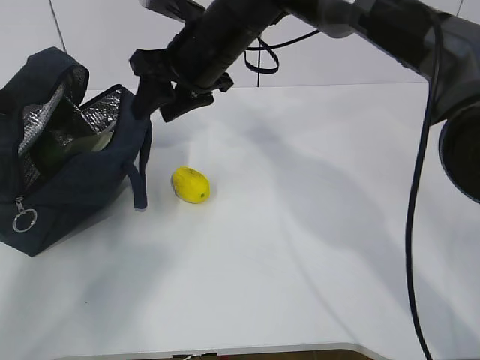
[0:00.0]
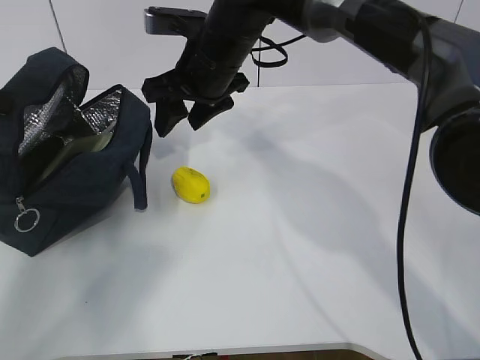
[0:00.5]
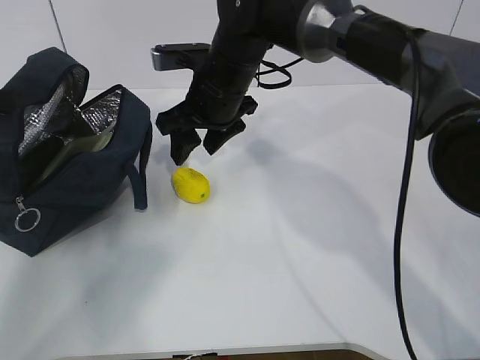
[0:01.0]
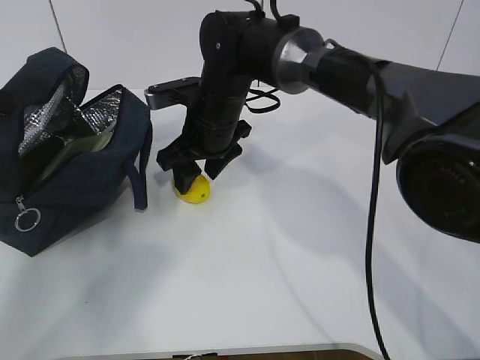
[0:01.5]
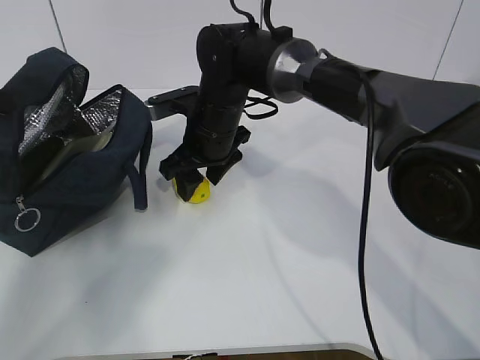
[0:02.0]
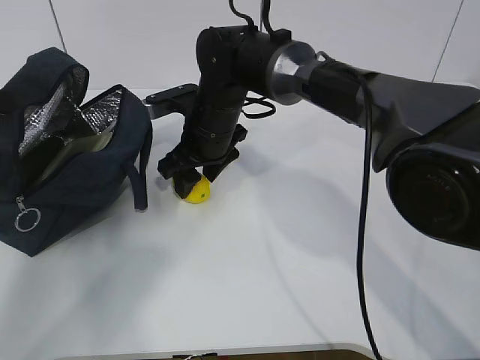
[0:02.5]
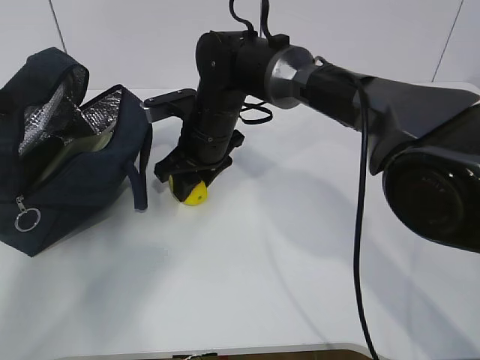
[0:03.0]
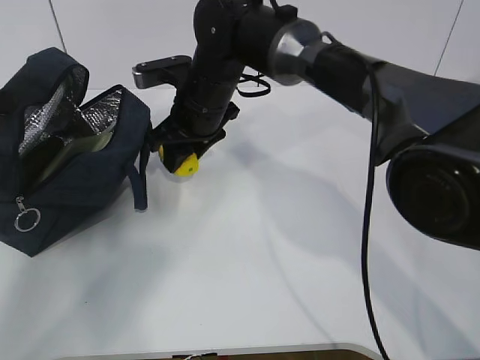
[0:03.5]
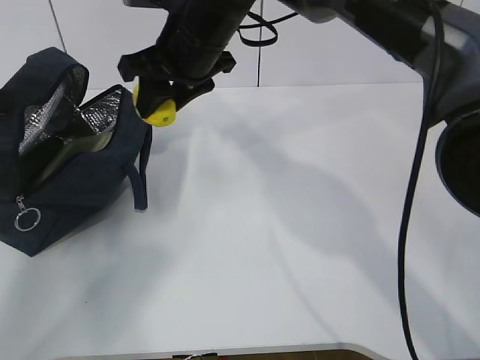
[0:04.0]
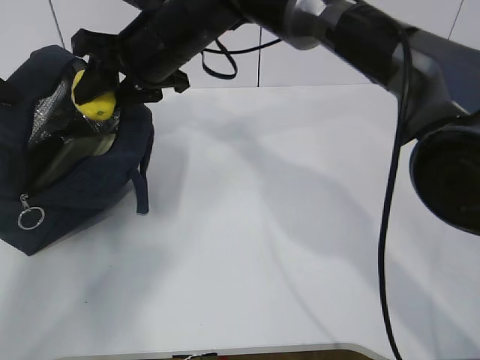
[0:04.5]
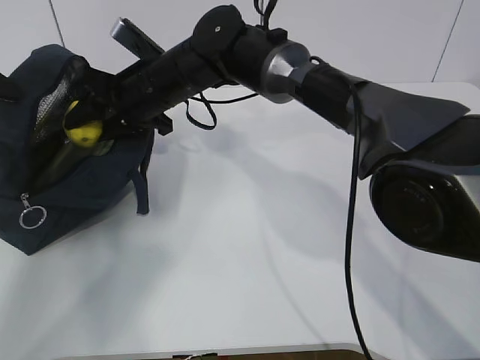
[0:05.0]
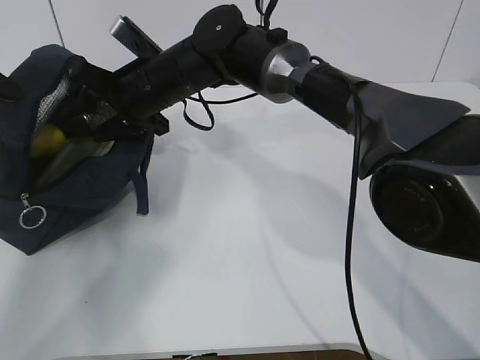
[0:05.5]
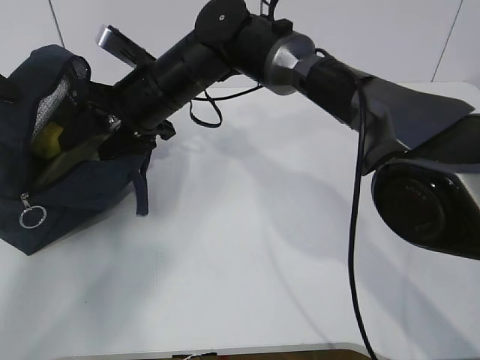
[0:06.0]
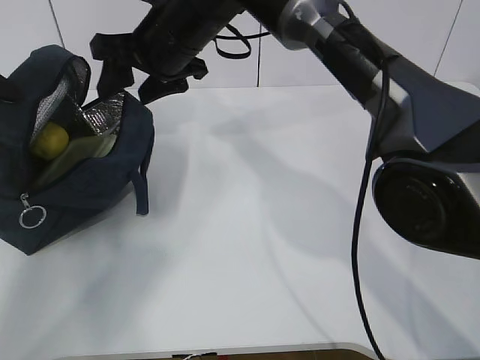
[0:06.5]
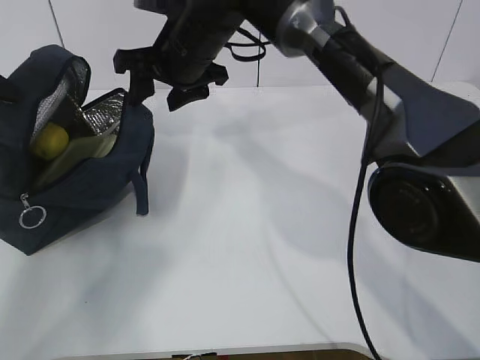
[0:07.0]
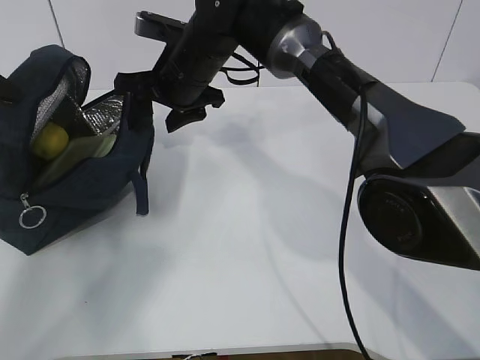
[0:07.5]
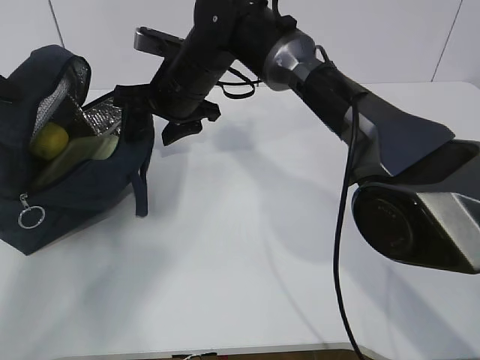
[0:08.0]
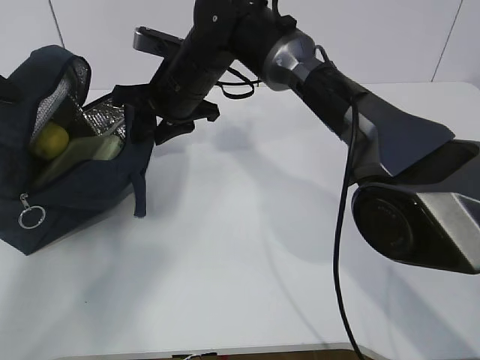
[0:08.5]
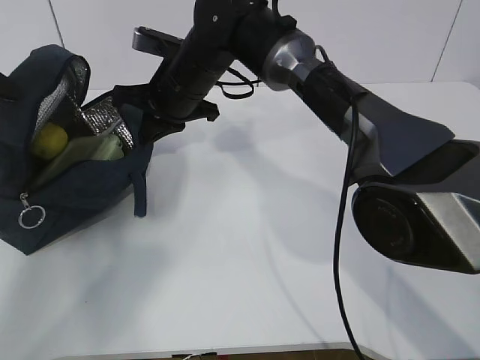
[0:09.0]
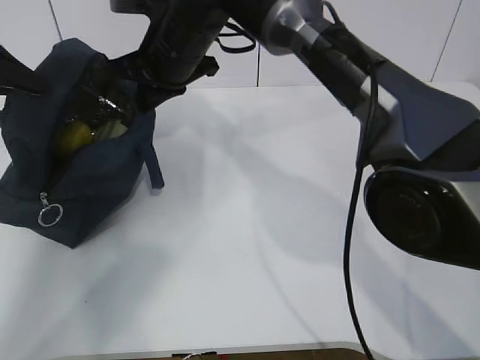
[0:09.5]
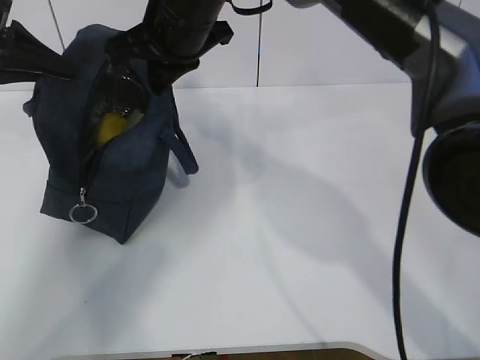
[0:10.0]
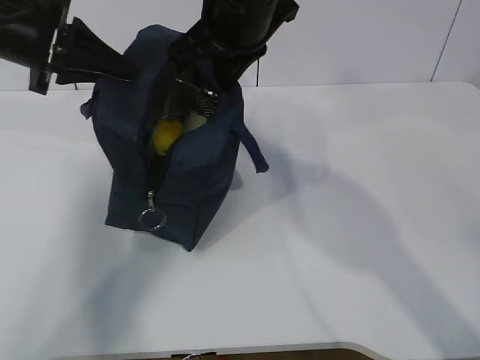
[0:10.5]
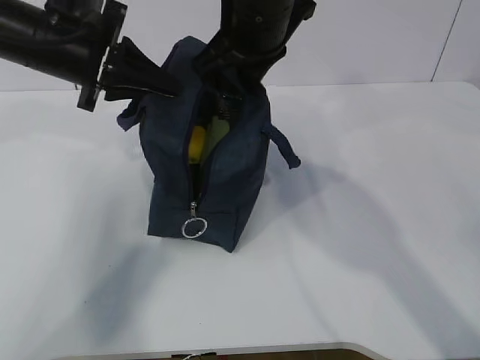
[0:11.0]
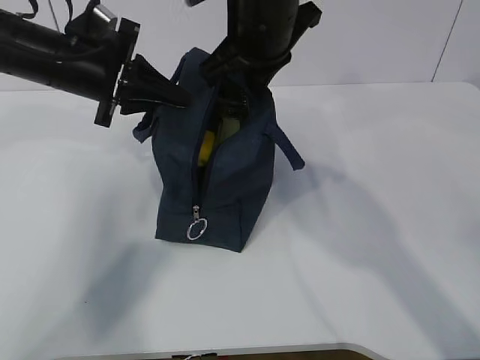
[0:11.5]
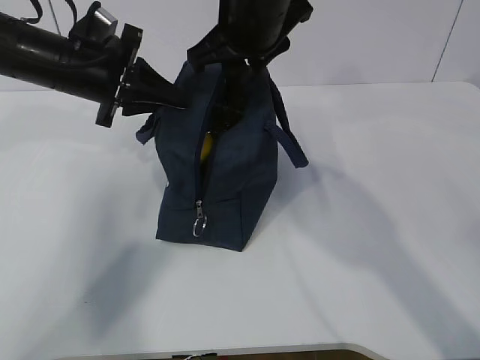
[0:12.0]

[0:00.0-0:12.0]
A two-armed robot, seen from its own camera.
Step, 0:00.0 to 0:02.5: Grab the lunch bag with your right hand.
Step, 0:03.0 to 0:05.5: Move the lunch bag to the right.
0:00.0 to 0:02.0: The right gripper moves downward, about 10 cm.
0:02.0 to 0:04.0: The right gripper is displaced upward by about 10 cm.
0:04.0 to 0:06.0: The right gripper moves downward, about 5 cm.
0:08.0 to 0:10.0: The right gripper goes roughly 10 cm upward, and closes up. Meanwhile the left gripper is displaced to the right by some 5 cm.
0:10.0 to 0:12.0: The right gripper is displaced to the right by about 5 cm, and opens its fingers, while the left gripper goes some 15 cm to the right and downward.

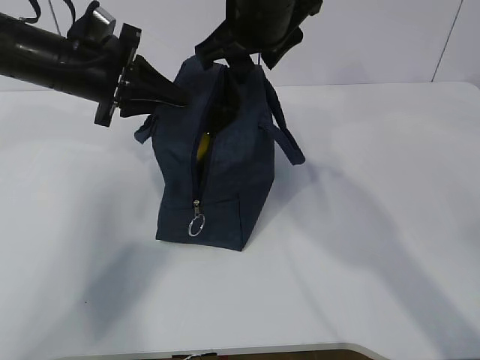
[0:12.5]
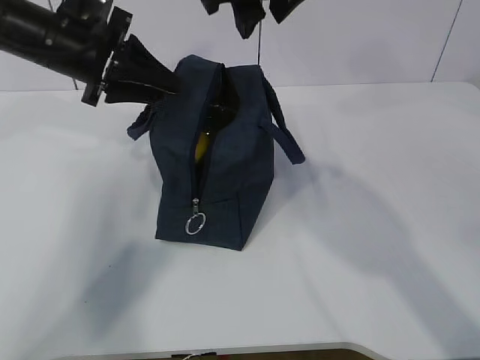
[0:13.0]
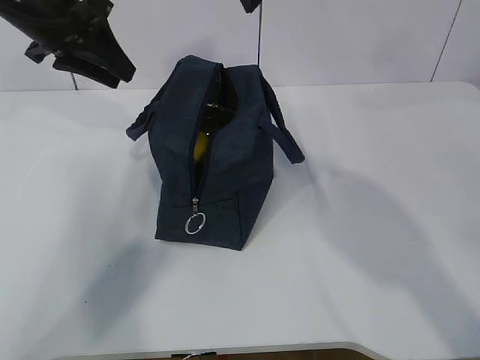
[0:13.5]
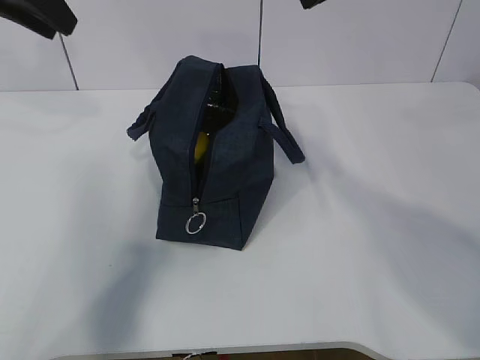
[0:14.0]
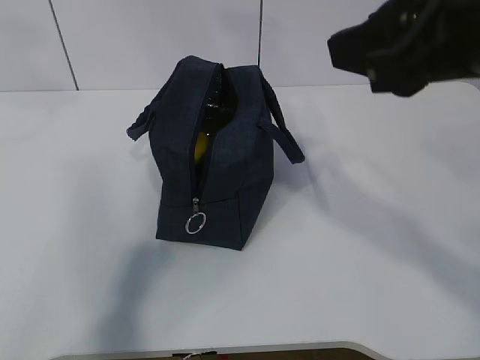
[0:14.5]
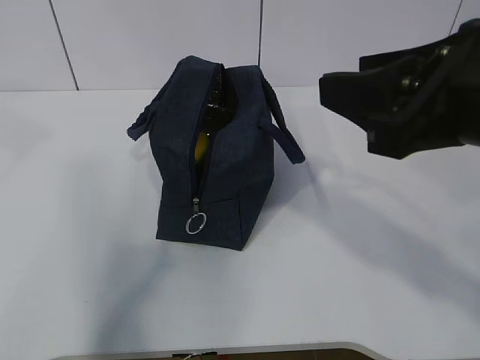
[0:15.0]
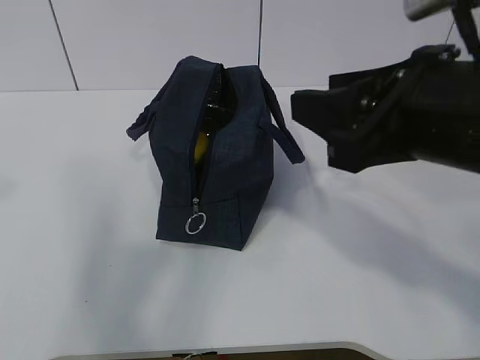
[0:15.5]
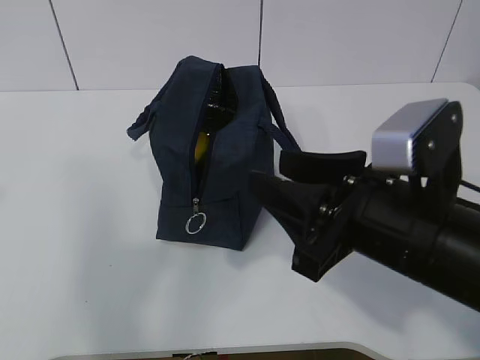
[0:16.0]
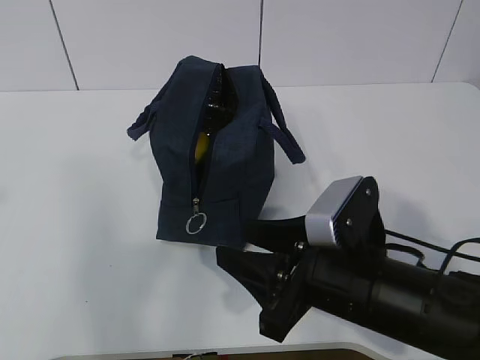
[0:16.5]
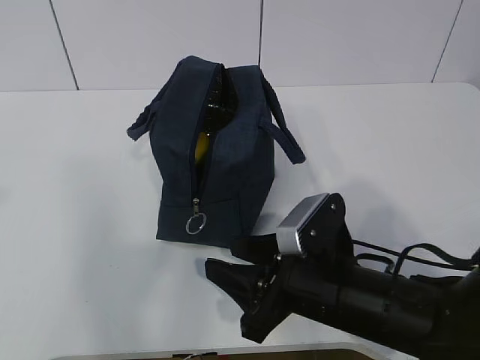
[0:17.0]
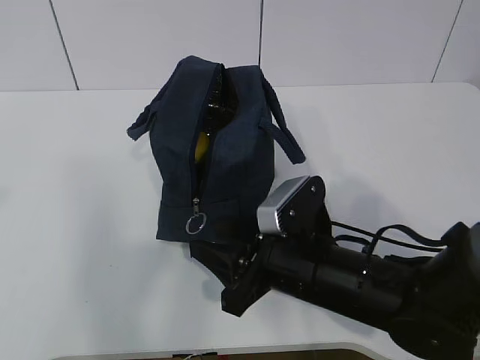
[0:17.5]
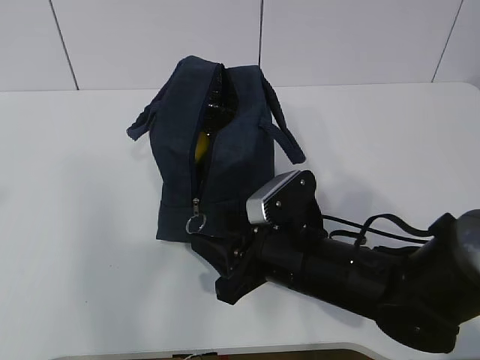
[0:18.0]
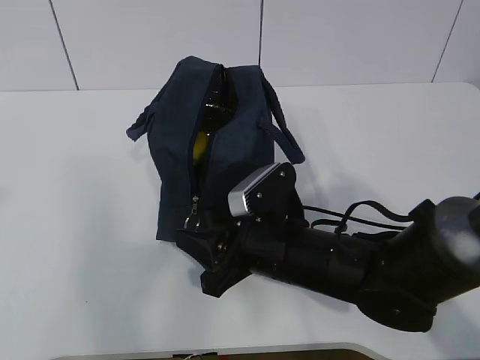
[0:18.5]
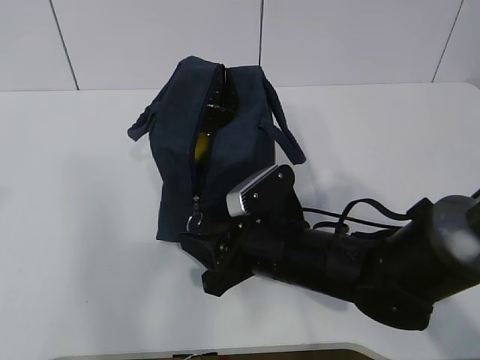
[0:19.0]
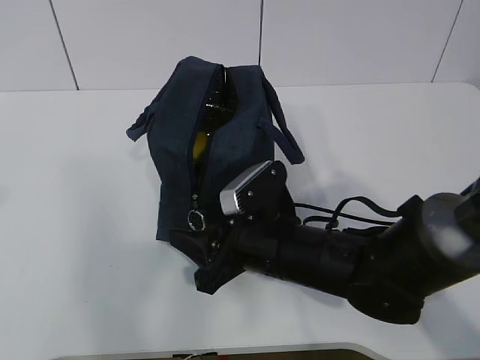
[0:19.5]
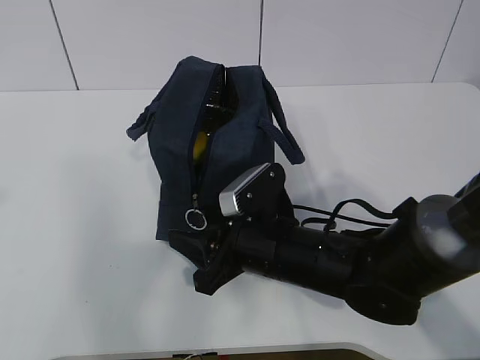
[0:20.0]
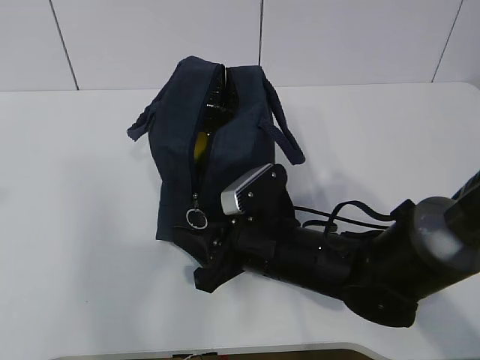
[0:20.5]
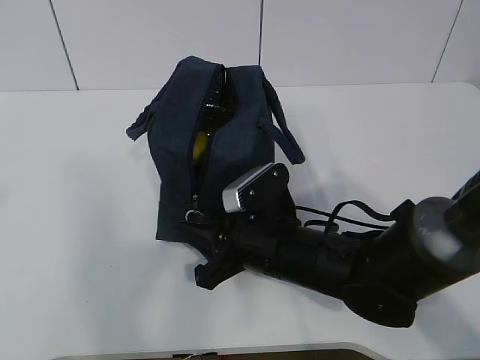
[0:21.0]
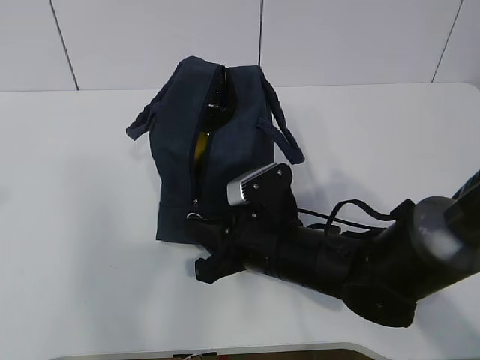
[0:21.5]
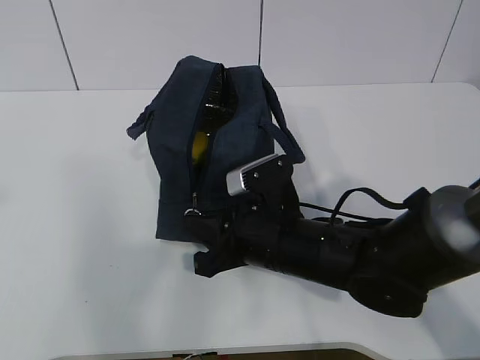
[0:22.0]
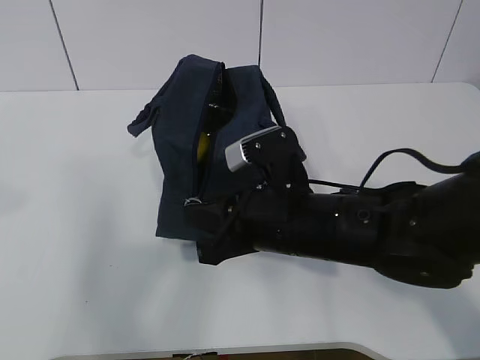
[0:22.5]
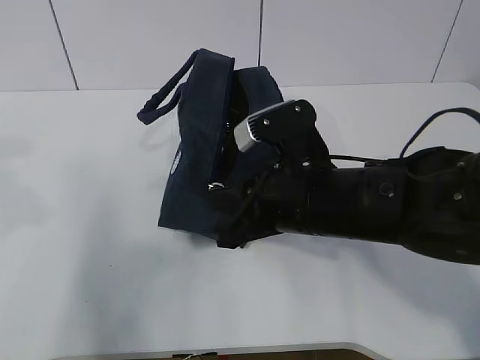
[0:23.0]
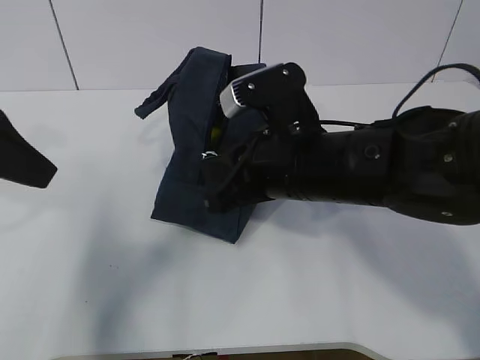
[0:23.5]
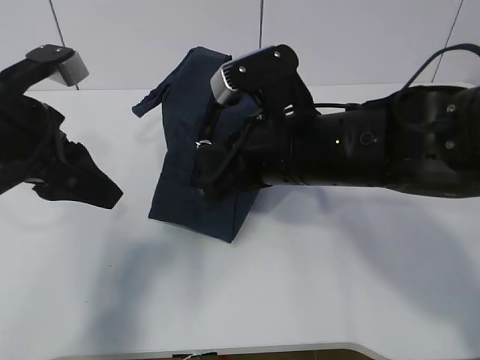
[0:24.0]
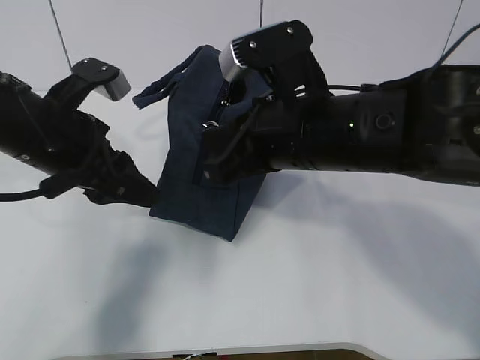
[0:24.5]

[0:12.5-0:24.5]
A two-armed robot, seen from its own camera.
Step, 0:12.5 to 0:19.0: Grab the lunch bag with your left hand.
0:12.5 to 0:14.5: The right gripper goes about 25 cm backward and to the right, while the left gripper travels upward and backward by roughly 25 cm, and opens up.
0:14.5 to 0:16.5: The right gripper travels downward by approximately 20 cm. Meanwhile the left gripper shifts approximately 25 cm backward.
0:16.5 to 0:18.5: The right gripper shifts roughly 5 cm forward.
0:18.5 to 0:20.5: The grippers stay close to where they were, moving slightly.
0:20.5 to 0:22.5: The right gripper travels upward by approximately 5 cm, and closes up.
0:22.5 to 0:24.5: The right gripper is displaced upward by roughly 10 cm. The left gripper travels downward, forward and to the right by about 30 cm.

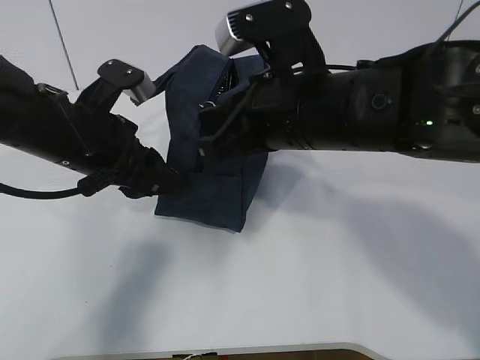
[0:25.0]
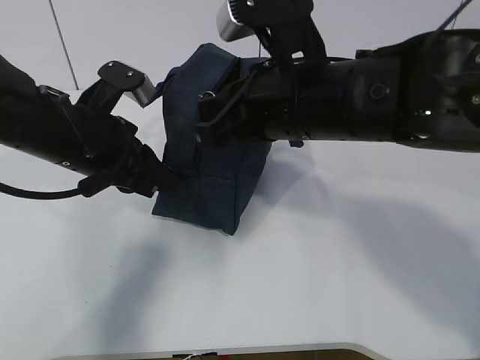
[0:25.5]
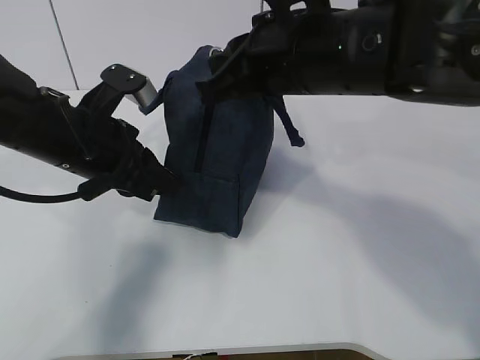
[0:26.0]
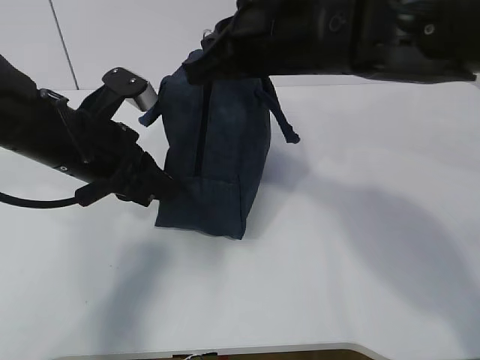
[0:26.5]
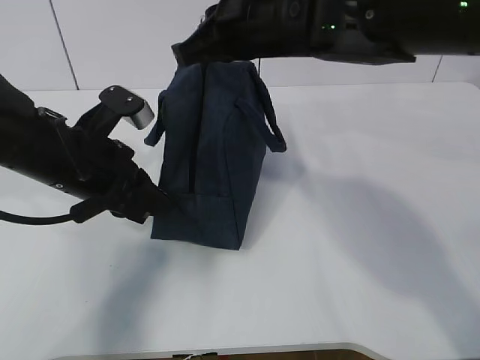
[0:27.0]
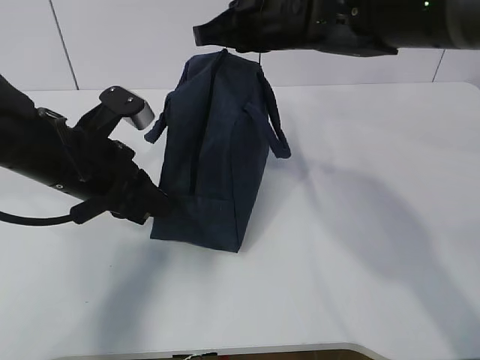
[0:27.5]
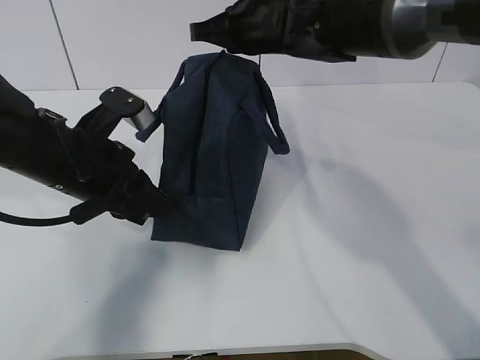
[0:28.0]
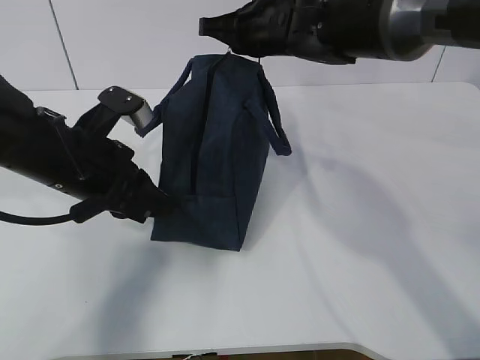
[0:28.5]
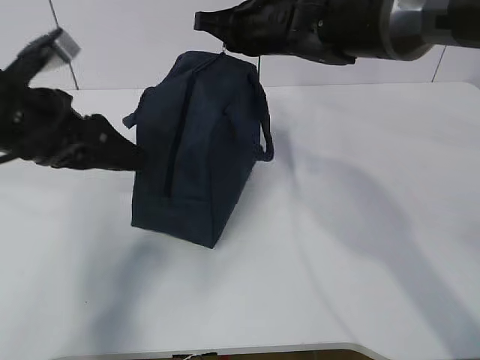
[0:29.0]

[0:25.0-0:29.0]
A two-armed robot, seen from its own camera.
0:25.0 to 0:27.0: The right gripper goes some 5 cm forward. Meanwhile the left gripper closes up.
0:27.0 to 0:29.0: The right gripper heads forward, covering approximately 10 cm. The left gripper ends up approximately 5 cm from where it was, and opens.
